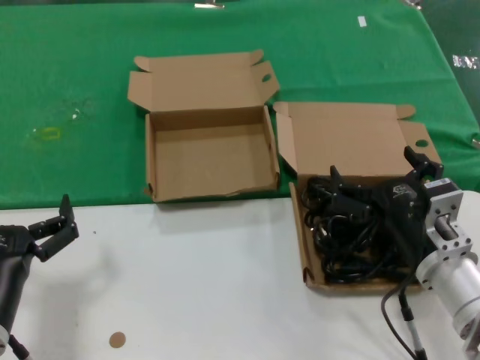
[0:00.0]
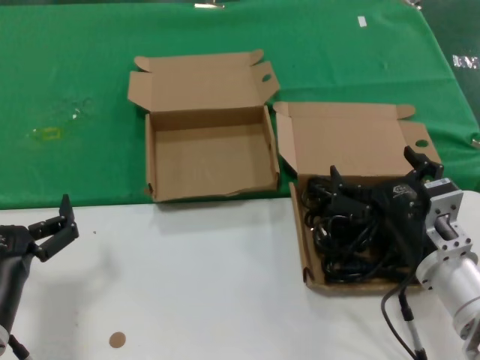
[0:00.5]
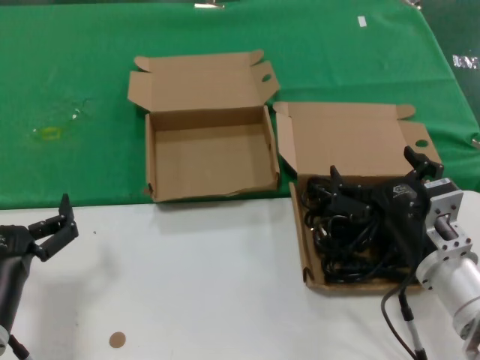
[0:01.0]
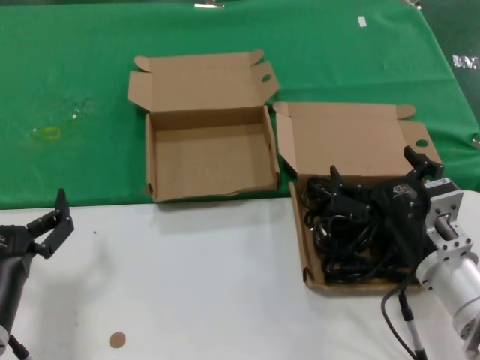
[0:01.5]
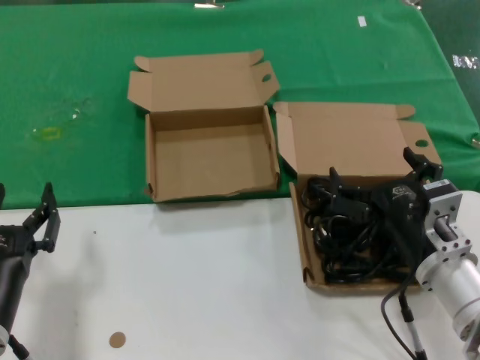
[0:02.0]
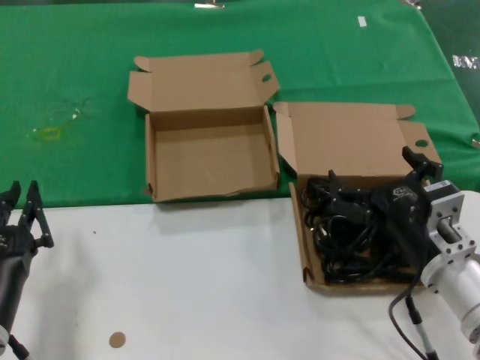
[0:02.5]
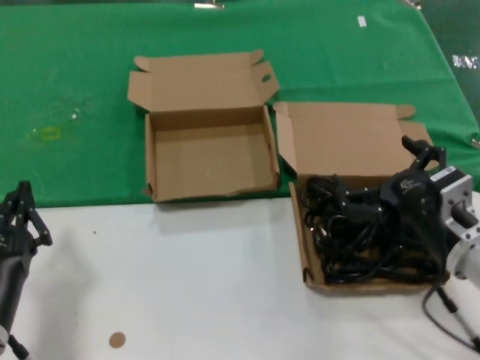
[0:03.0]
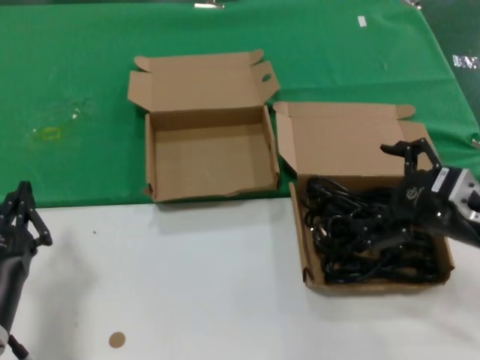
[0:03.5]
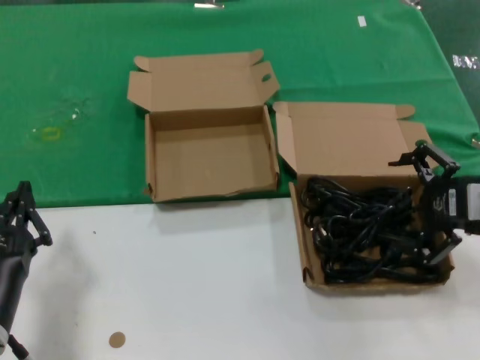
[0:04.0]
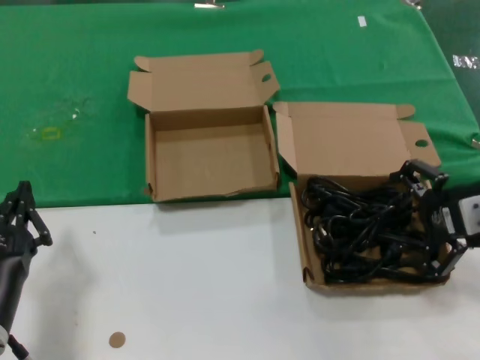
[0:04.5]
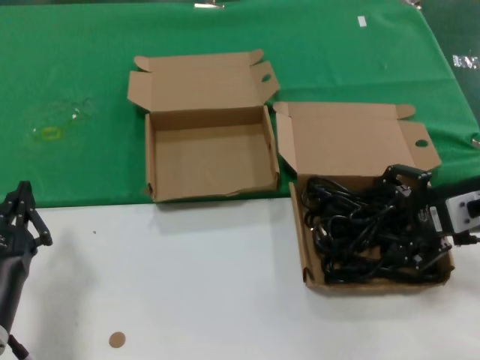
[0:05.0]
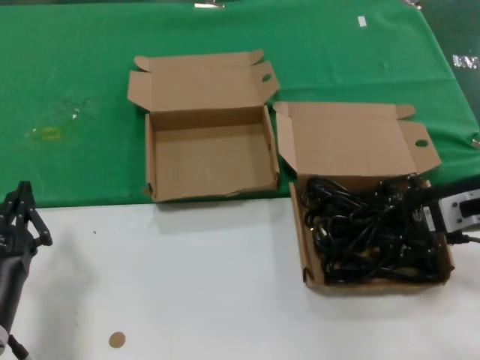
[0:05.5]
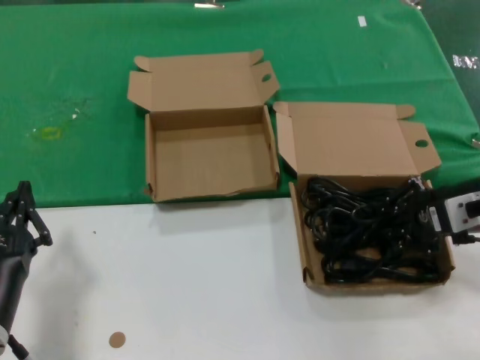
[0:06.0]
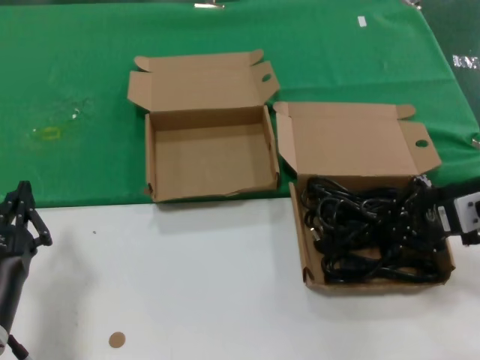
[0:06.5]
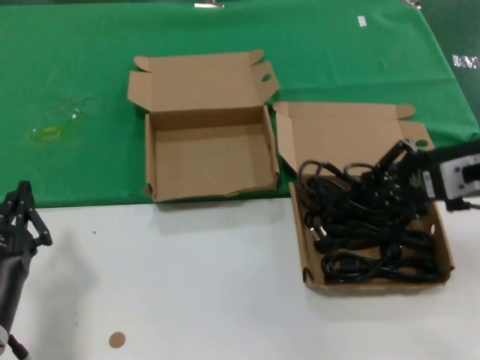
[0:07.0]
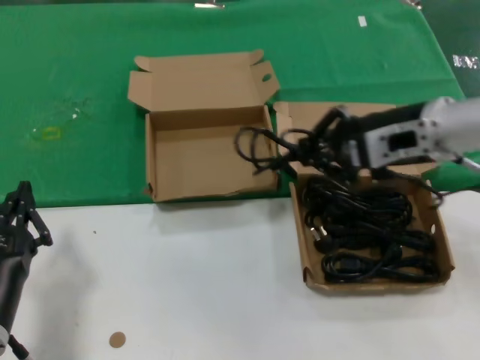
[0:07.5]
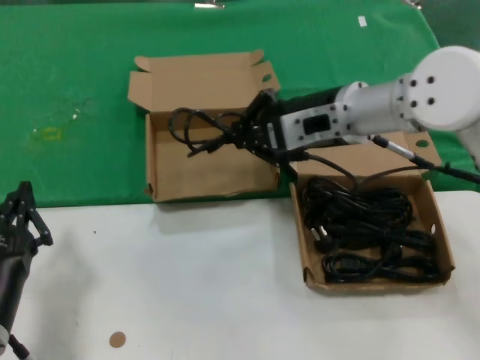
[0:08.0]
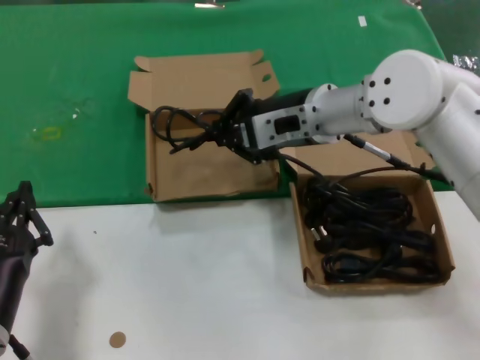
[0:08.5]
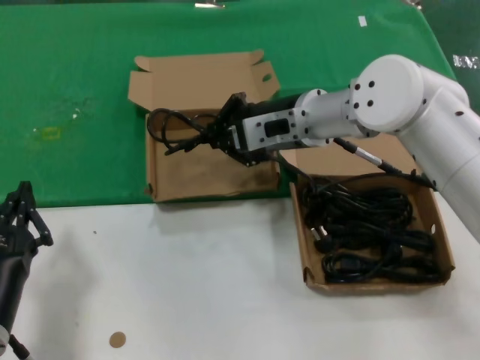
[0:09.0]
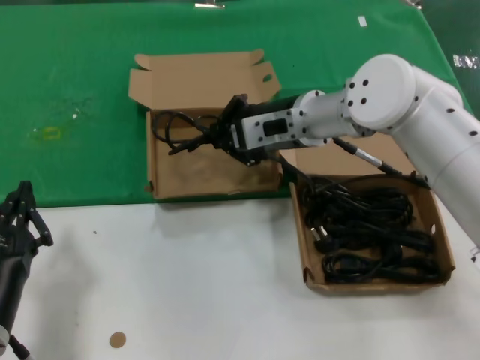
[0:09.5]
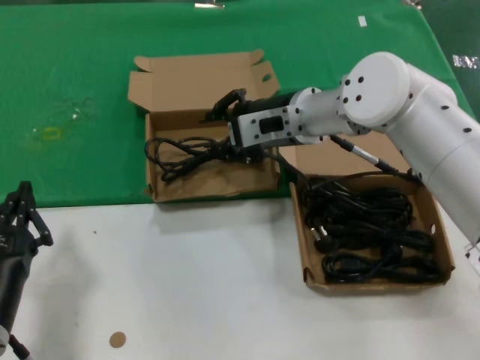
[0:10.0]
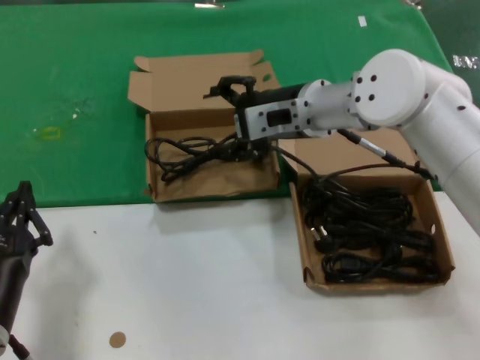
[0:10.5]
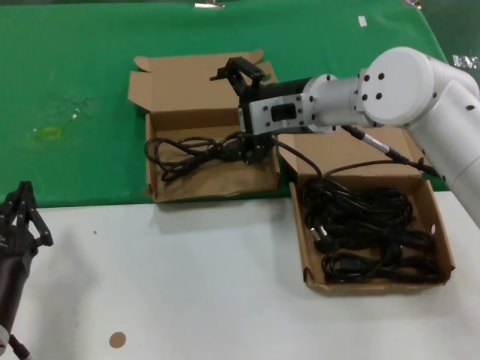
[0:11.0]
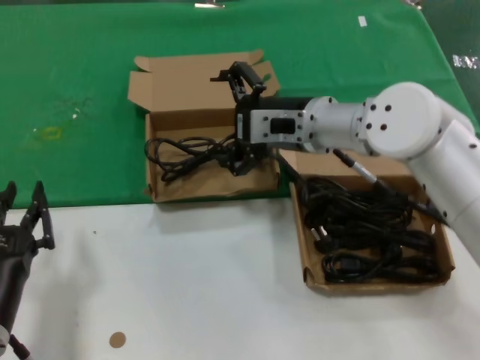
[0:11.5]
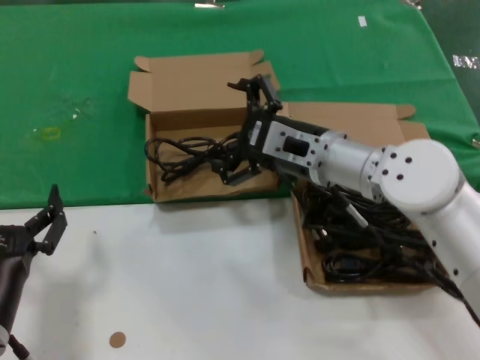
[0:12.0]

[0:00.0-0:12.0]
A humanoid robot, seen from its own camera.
Task of the whole recording: take the parts from the box containing them and put them into an empty box.
Step, 0:00.0 to 0:05.5: Grasp the data cable.
Step, 0:06.0 to 0:09.5: Place the data cable in the another box.
0:00.0 to 0:02.0: Both hands stay about where they are.
0:02.0 to 0:04.0: The right hand is displaced upward and to the right by about 20 cm.
0:04.0 to 0:06.0: There are only small adjustments of the hands.
0:06.0 to 0:08.0: The right hand travels to the left, forward and upward by some 20 cm.
0:08.0 to 0:10.0: The right hand travels forward by roughly 5 cm.
0:10.0 to 0:12.0: The right hand is displaced backward and downward by roughly 10 cm.

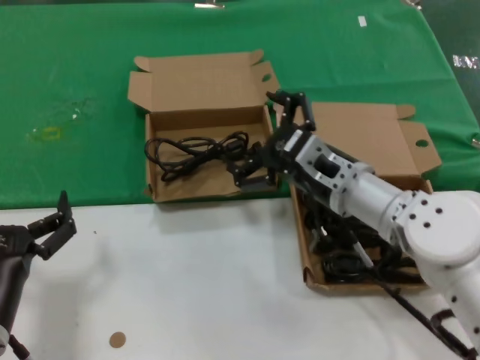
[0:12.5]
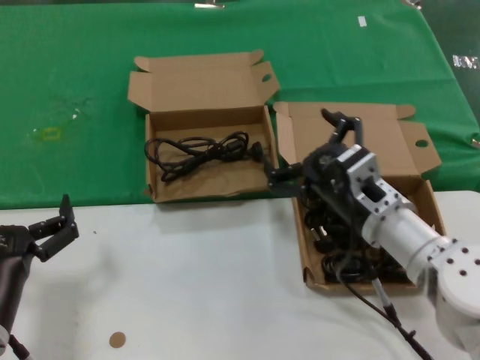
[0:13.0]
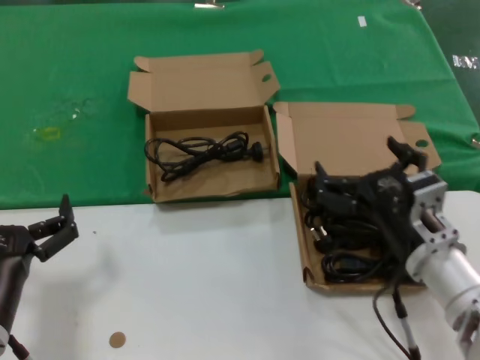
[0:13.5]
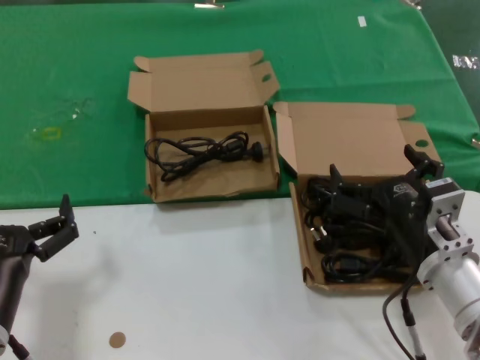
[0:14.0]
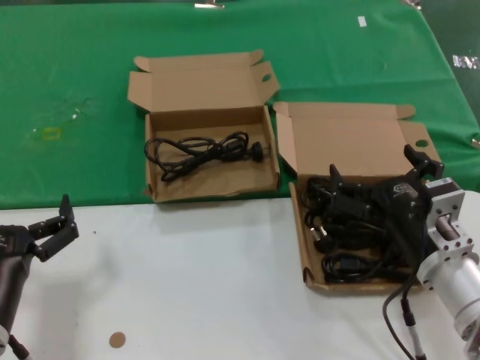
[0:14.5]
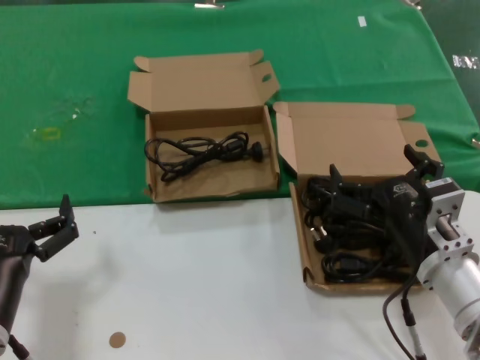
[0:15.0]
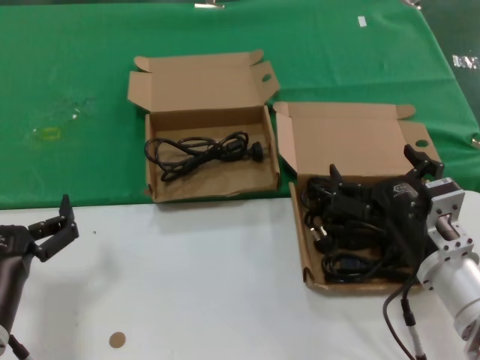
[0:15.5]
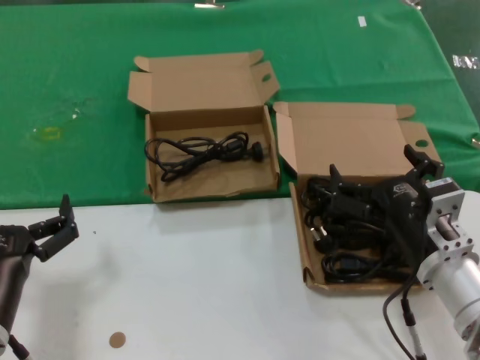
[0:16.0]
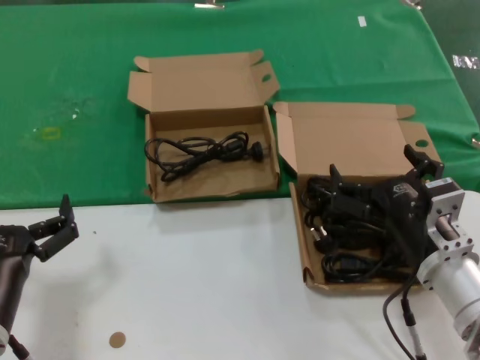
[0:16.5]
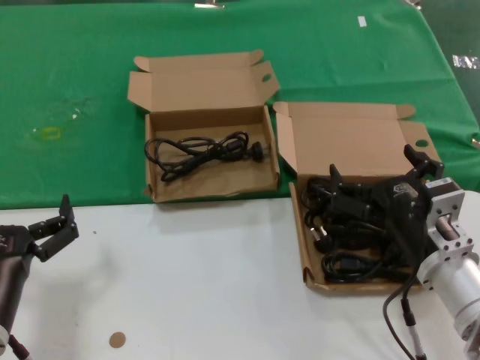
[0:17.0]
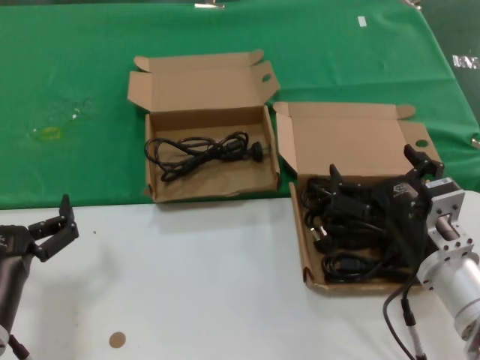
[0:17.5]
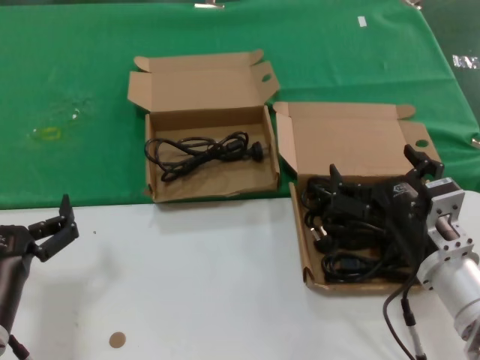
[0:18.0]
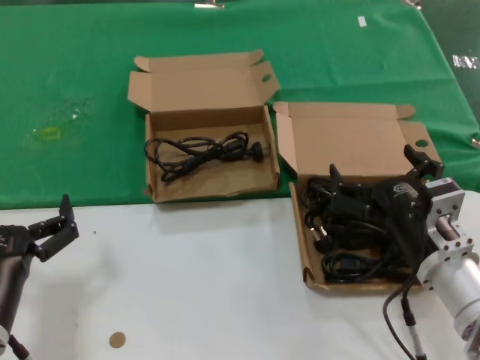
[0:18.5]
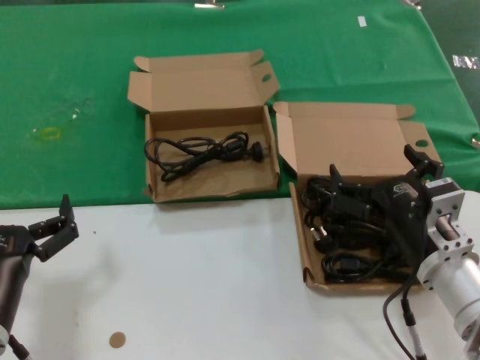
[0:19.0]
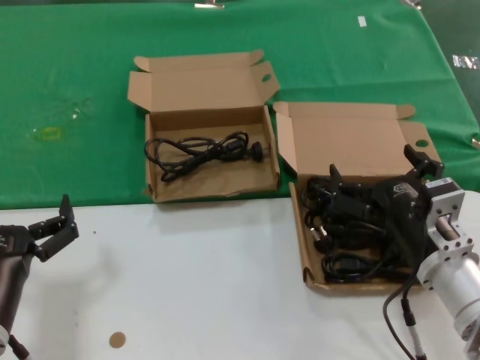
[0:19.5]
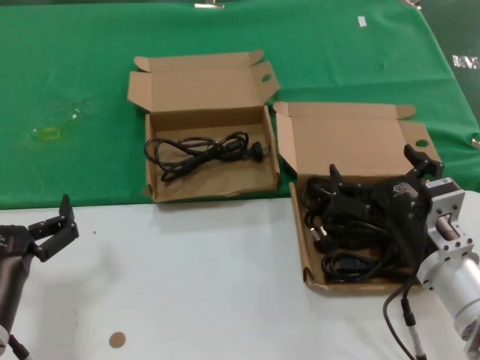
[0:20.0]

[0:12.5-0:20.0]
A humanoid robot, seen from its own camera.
Task of the whole recording: take the parts from the box containing them and put them into an empty box.
0:12.5 to 0:14.5: The right hand is displaced backward, to the right and downward by some 15 cm.
0:14.5 to 0:20.0: Both hands stay about where they are.
